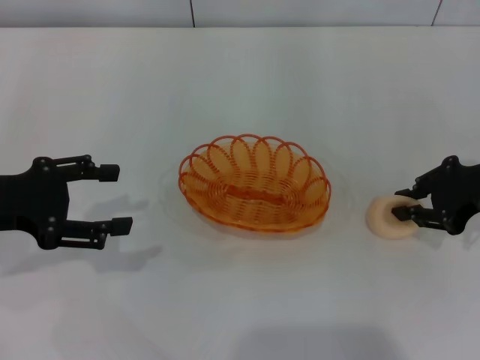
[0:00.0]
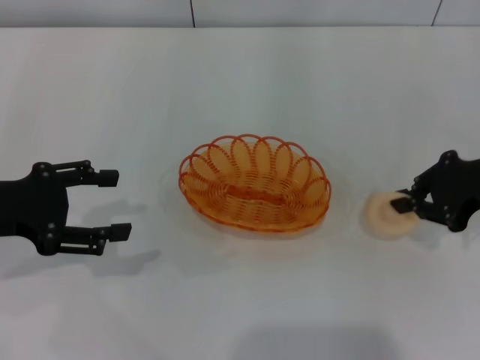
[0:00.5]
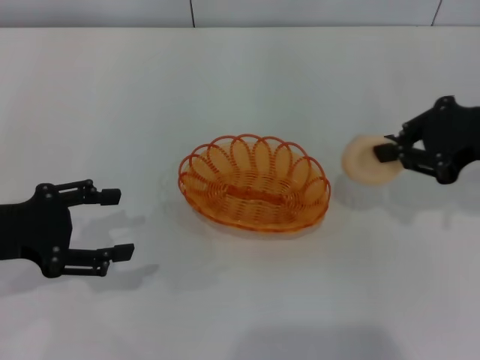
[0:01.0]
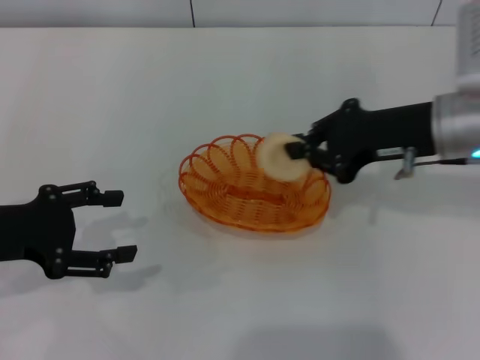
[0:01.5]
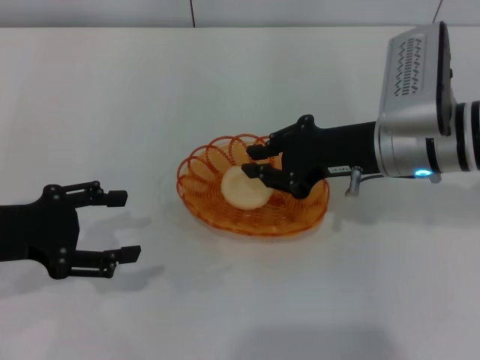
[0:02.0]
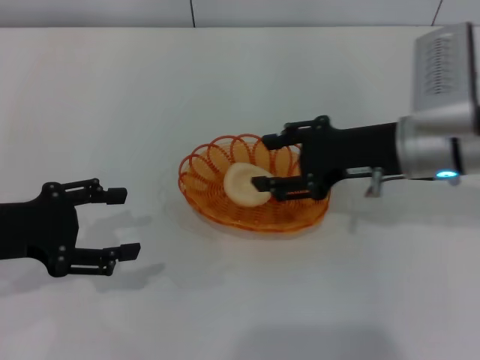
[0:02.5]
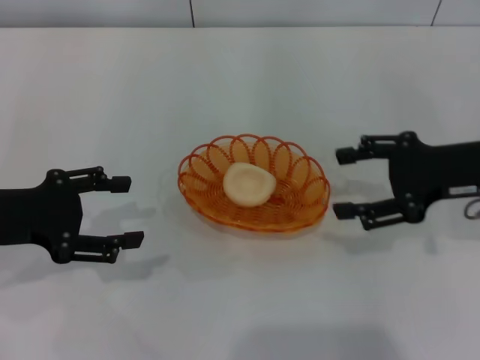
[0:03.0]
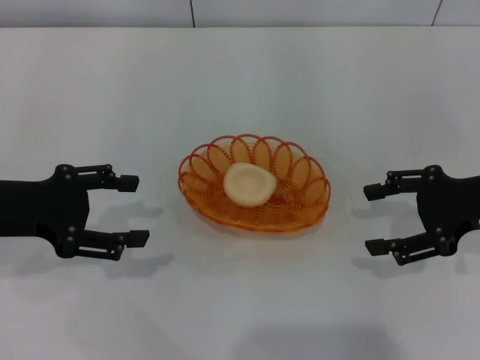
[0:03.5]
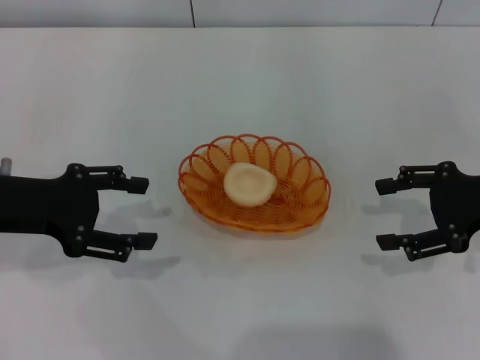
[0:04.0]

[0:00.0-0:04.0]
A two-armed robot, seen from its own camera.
Step, 0:01.0 to 0:02.5: Place the egg yolk pastry into the basket with the right gripper.
0:00.0 to 0:02.0: The right gripper is displaced to the left by about 15 cm.
0:02.0 to 0:04.0: The right gripper travels to the right by roughly 15 cm, and opens its fingers.

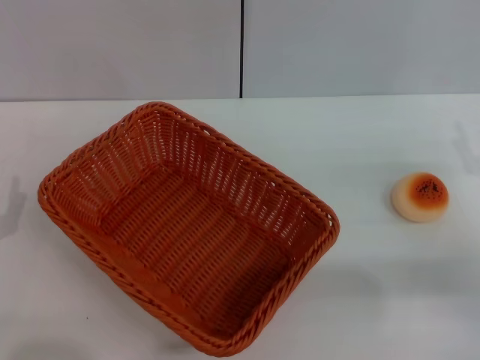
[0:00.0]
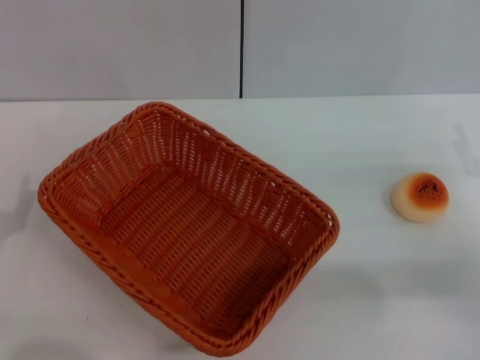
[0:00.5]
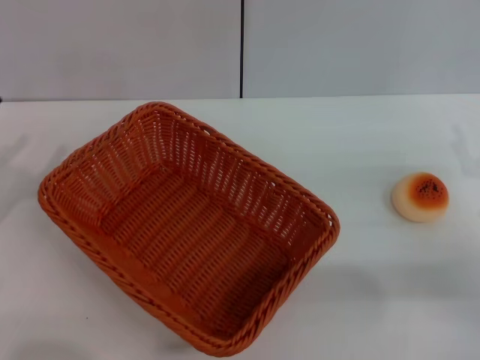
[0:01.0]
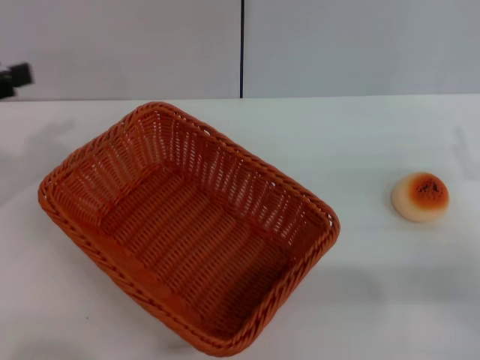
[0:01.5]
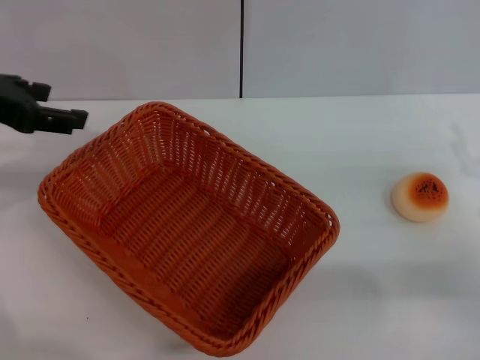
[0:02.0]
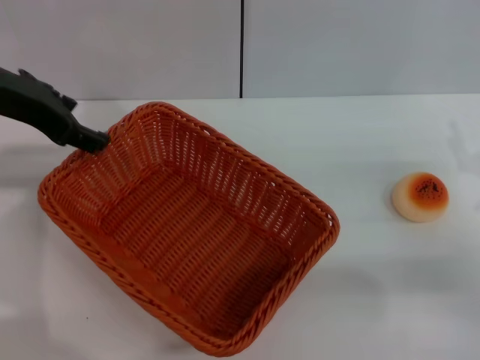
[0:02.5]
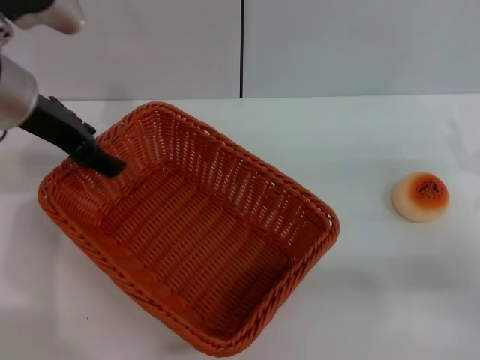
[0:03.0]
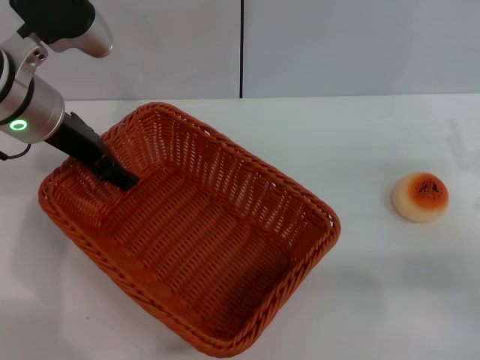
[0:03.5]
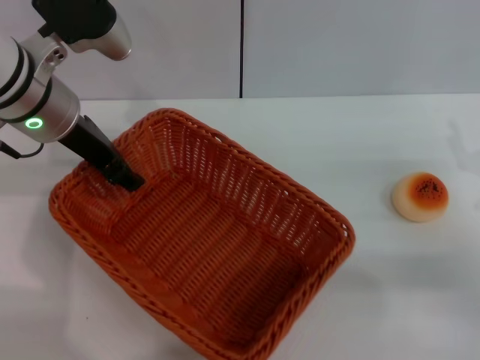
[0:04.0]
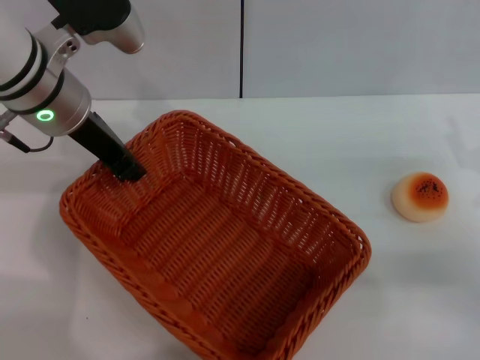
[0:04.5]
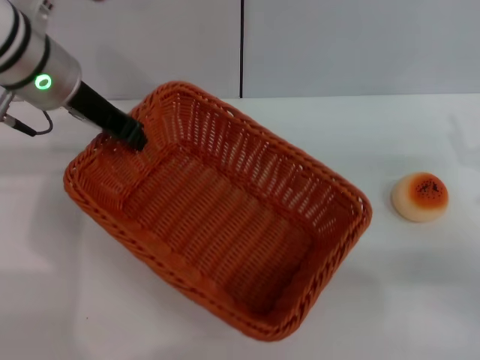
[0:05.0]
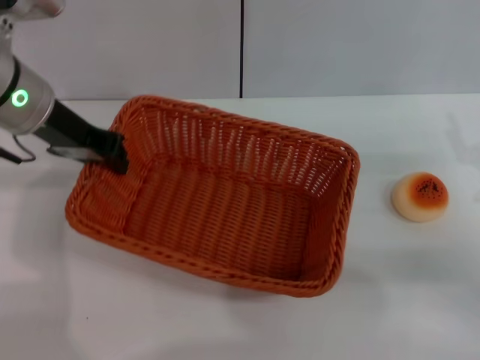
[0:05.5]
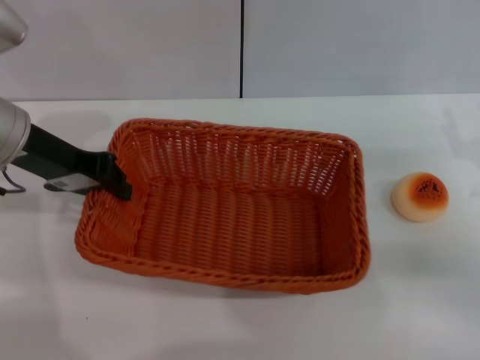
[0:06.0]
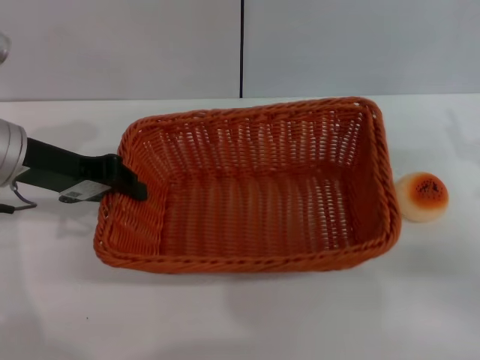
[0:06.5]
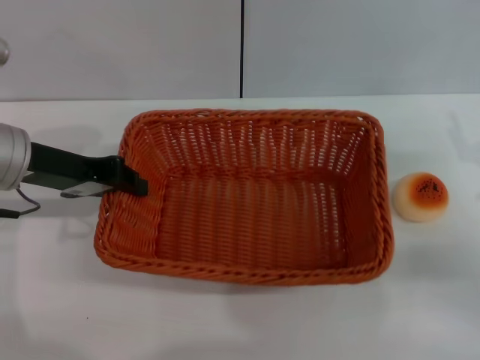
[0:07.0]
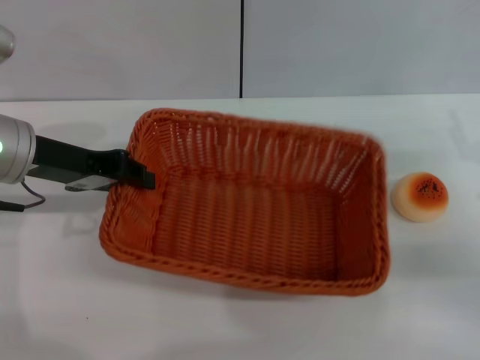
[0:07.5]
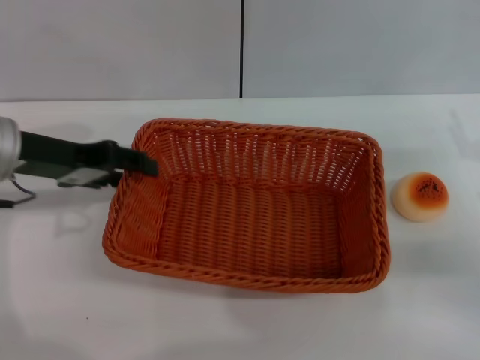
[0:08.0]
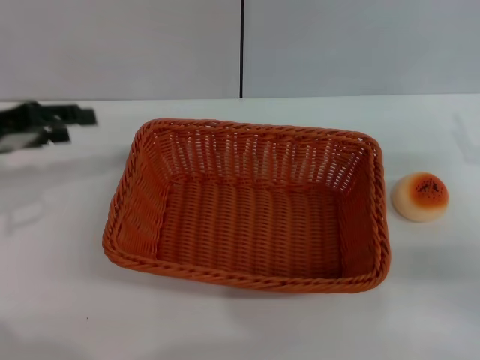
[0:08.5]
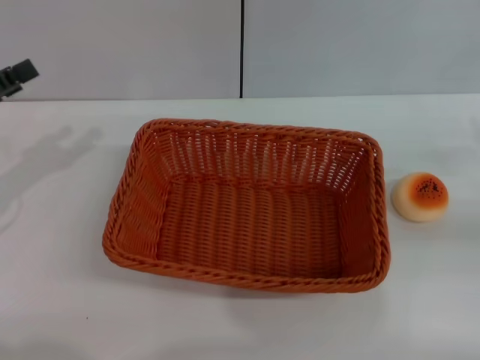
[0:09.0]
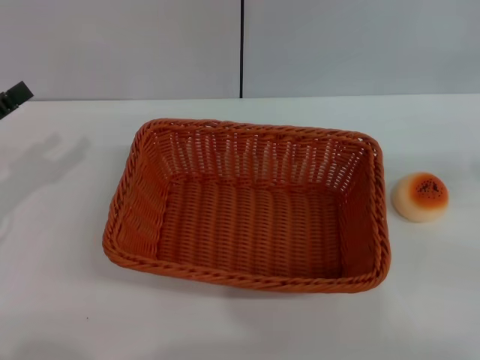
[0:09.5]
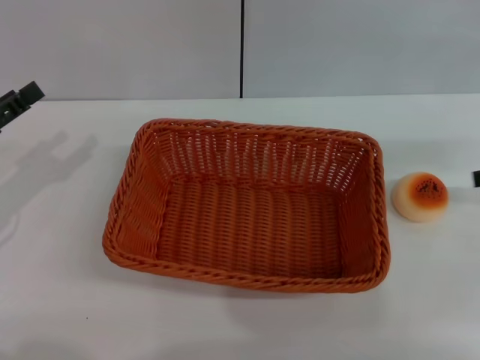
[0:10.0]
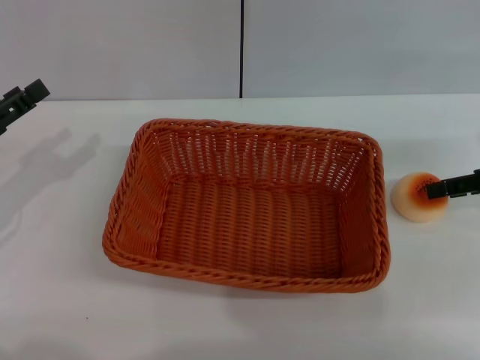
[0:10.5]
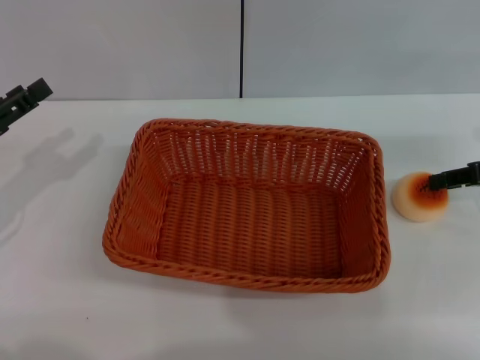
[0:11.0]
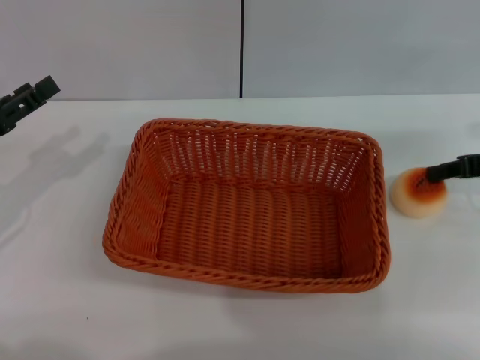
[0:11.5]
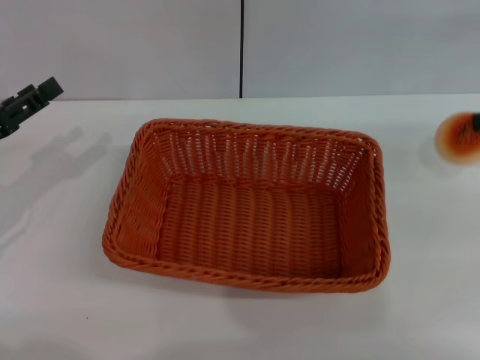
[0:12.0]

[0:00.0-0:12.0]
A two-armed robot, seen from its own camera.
Step, 0:00.0 to 0:08.0: Move the basket to the center of view with the left gripper.
0:00.0 to 0:02.0: The left gripper travels upward and forward by roughly 25 cm.
0:02.0 to 0:04.0: The left gripper travels to the right, forward and downward by roughly 10 cm.
0:04.0 to 0:06.0: The left gripper moves to the left, approximately 5 cm, and closes its fingers.
0:06.0 to 0:08.0: The left gripper opens up.
0:08.0 to 0:10.0: The right gripper goes approximately 10 cm upward and forward. The left gripper heads to the left, downward and backward, covering some 15 cm, and opens.
0:10.0 to 0:12.0: The right gripper closes.

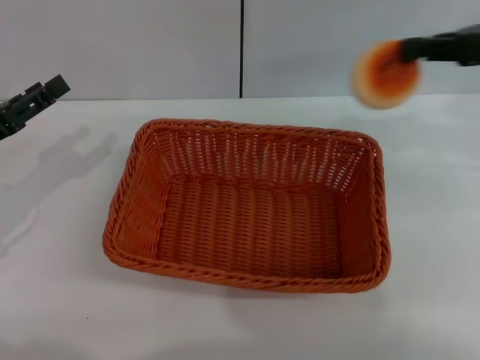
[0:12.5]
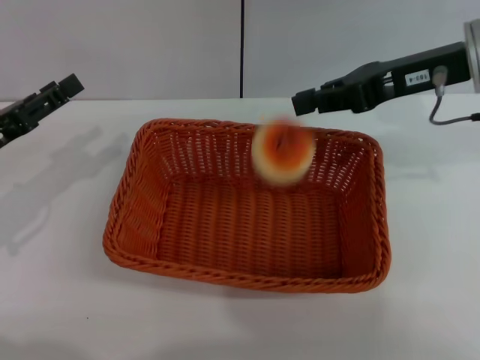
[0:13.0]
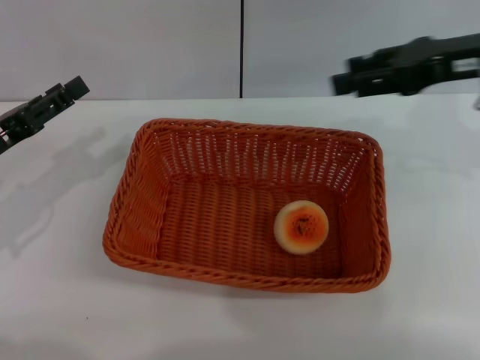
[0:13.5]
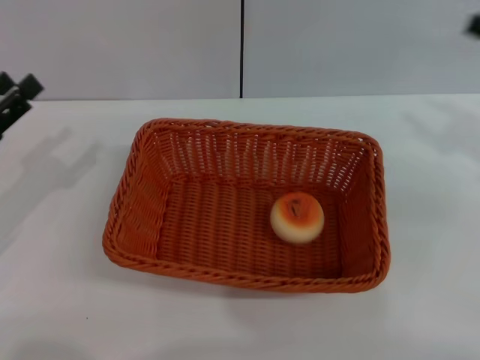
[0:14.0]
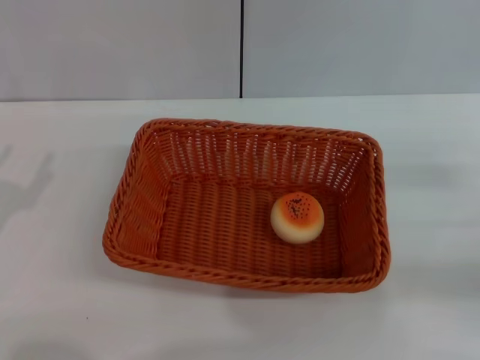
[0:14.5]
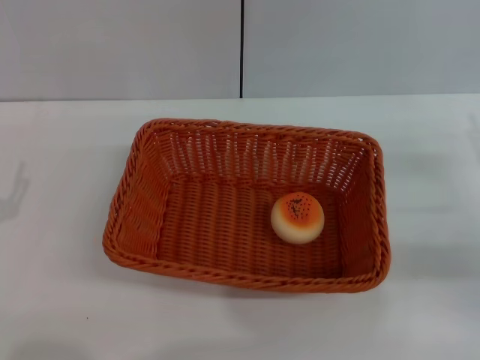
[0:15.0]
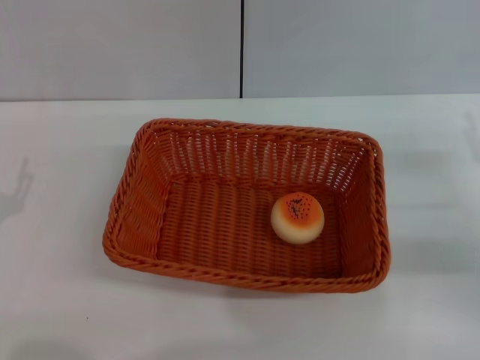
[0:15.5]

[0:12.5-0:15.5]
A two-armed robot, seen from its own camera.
Step, 0:12.5 to 0:13.5: Place the egg yolk pastry into the basket with the right gripper.
0:12.5 to 0:14.0: The right gripper goes some 10 cm downward, to the right and backward, and opens up.
0:14.0 to 0:15.5: The right gripper travels downward by about 10 cm. The left gripper travels backward and downward by roughly 10 cm.
